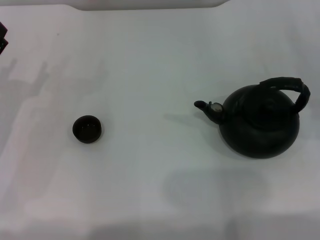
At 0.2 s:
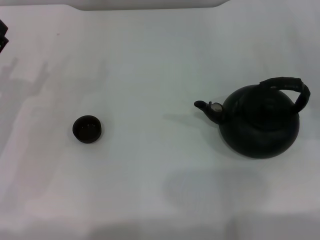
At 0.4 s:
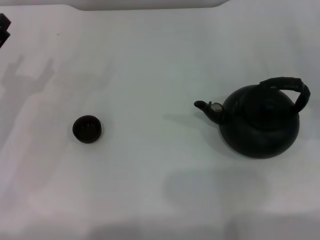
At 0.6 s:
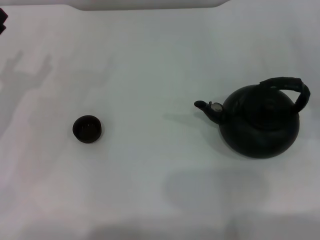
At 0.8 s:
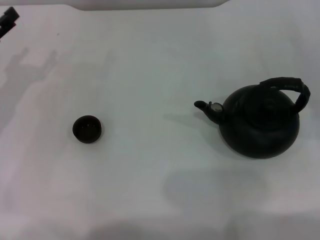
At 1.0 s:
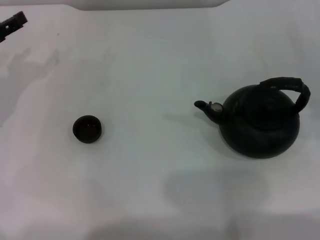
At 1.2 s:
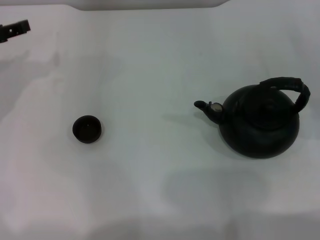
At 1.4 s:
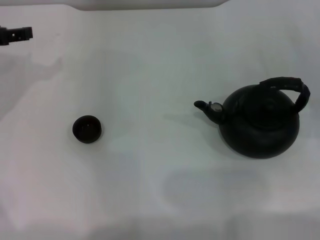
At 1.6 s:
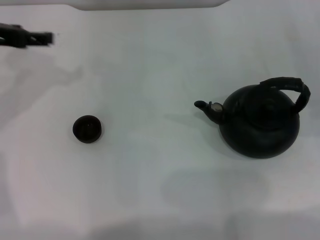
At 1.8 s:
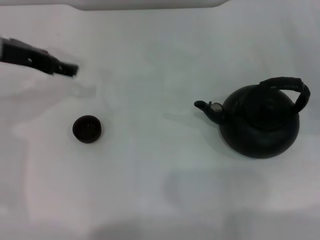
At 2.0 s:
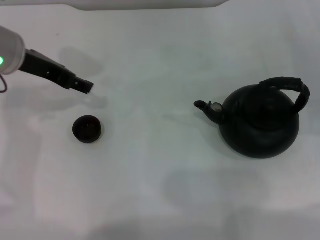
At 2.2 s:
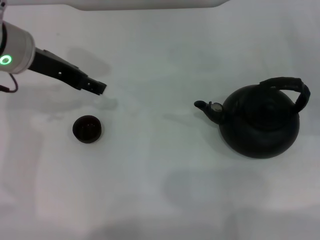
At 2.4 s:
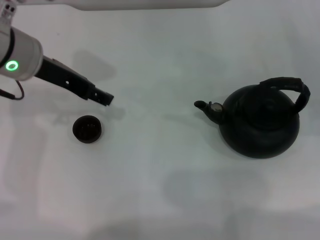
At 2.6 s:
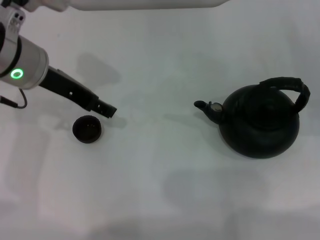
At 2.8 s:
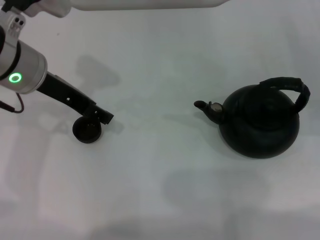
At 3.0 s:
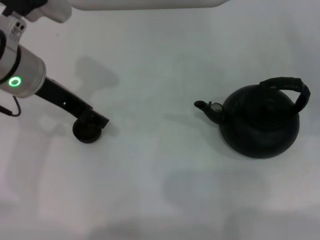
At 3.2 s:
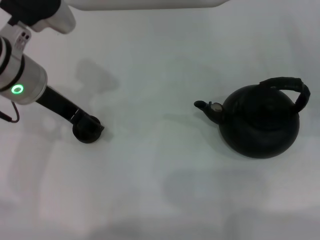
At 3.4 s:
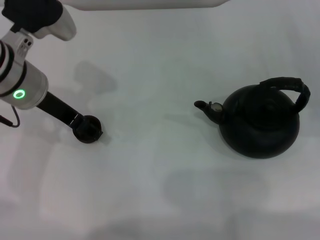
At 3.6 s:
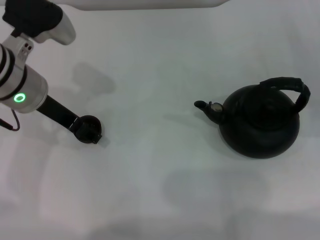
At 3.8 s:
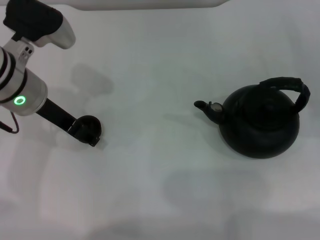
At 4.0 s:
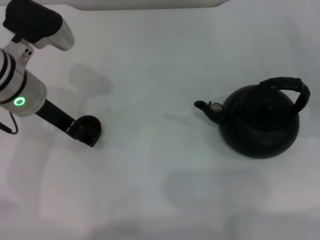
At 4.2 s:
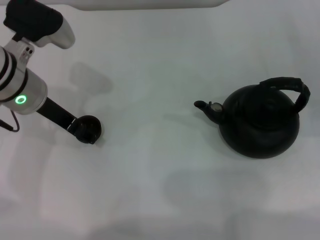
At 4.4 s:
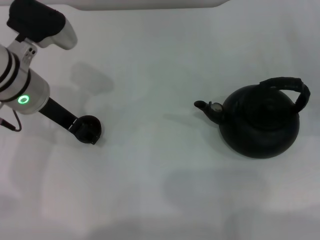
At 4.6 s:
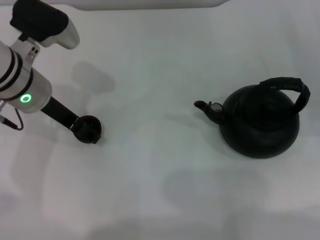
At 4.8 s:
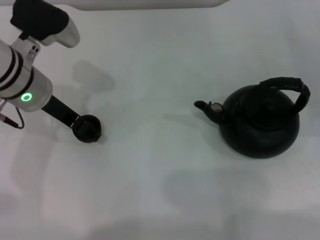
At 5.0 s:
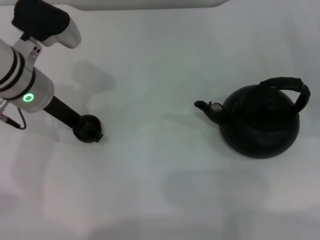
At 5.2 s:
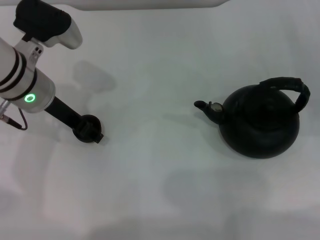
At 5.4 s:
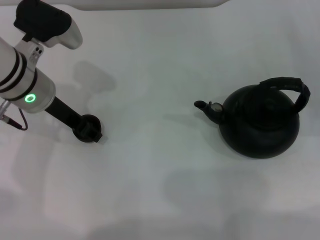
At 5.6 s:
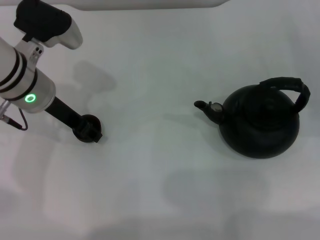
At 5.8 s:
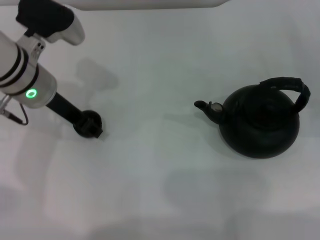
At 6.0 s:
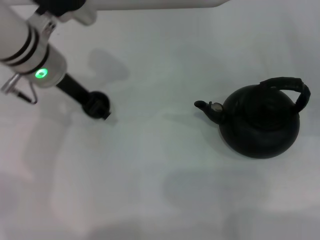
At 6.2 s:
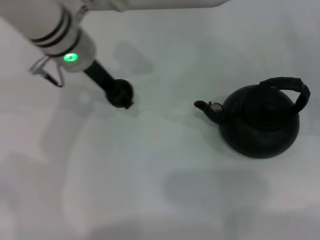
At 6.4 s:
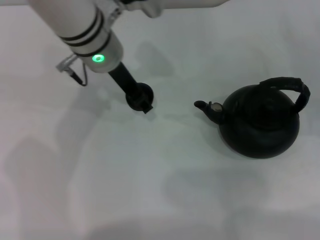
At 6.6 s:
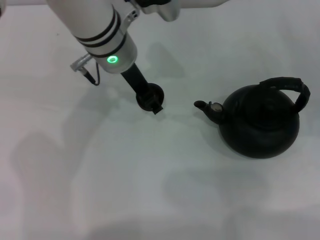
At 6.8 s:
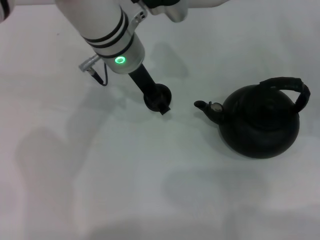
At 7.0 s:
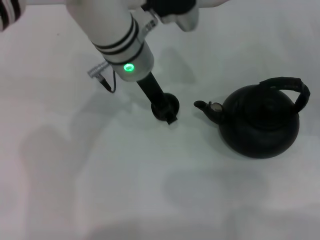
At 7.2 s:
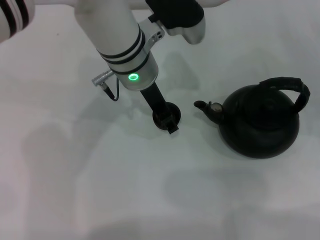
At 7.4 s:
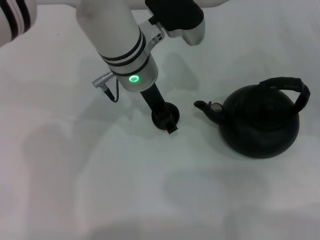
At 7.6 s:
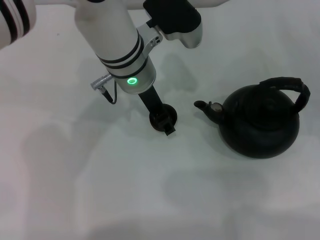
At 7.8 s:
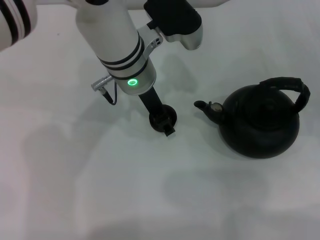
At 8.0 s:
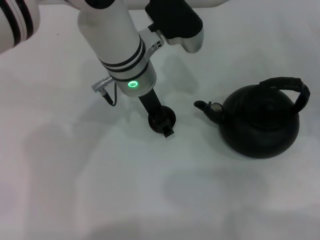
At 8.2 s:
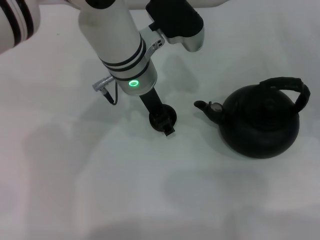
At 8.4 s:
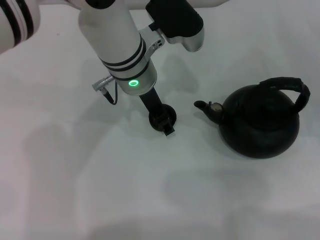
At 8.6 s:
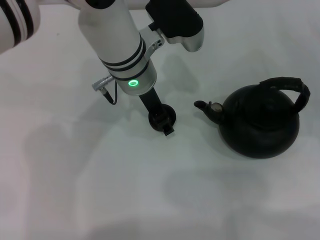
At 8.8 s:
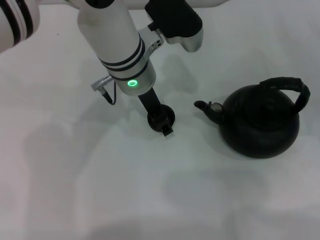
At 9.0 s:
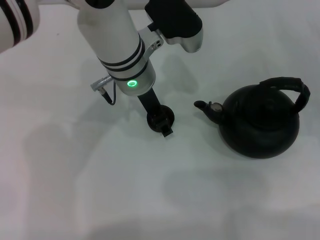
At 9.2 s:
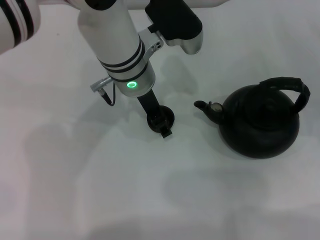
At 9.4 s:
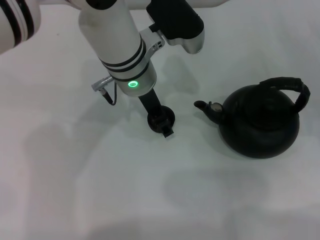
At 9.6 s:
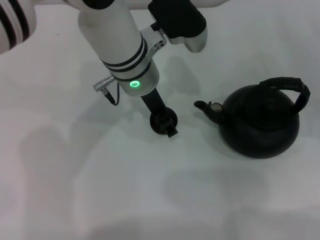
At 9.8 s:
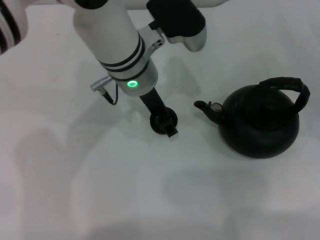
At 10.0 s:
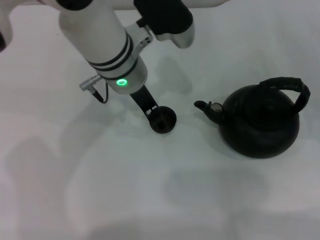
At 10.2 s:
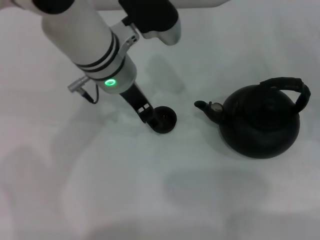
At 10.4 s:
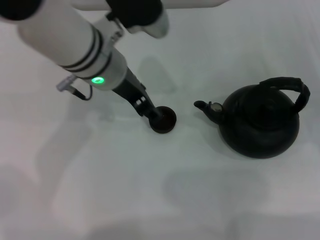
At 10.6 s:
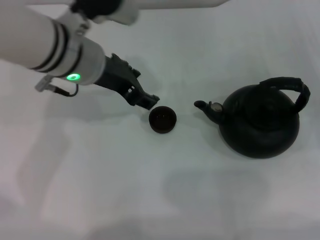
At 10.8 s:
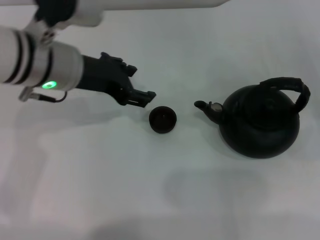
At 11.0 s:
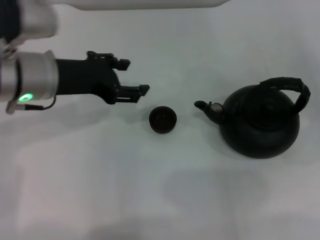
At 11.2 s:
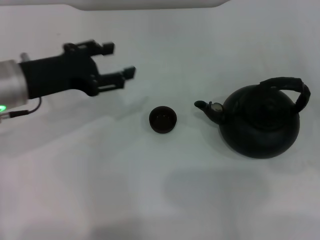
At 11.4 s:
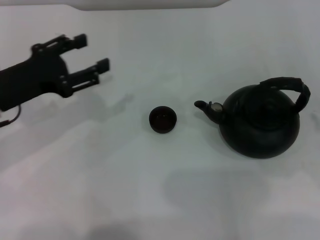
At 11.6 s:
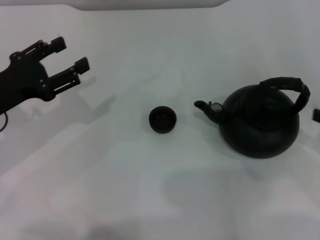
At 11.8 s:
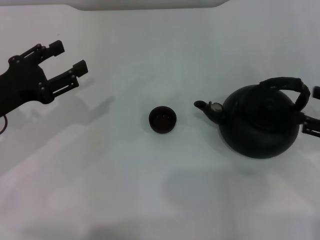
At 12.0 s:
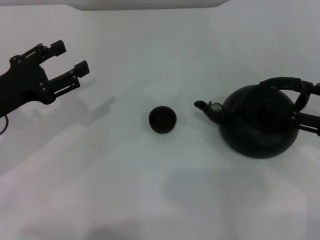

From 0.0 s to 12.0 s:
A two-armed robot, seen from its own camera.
Task of the whole recording: Grasp the handle of the teapot with one hand and pour tea into the teacup.
Step, from 0.0 s to 6.0 s: Pick up the teacup with the left gripper.
Step, from 6.4 s to 10.2 s: Place the teacup in the center of view with the left gripper.
From 0.0 s to 1.6 s: The left gripper is displaced upward and forward by roughly 15 cm.
From 1.6 s to 3.0 s: The left gripper travels to the right by some 10 cm.
From 3.0 s to 4.4 s: There are only small adjustments of the grippers.
From 4.4 s to 6.0 s: The left gripper closes up.
From 6.0 s to 7.6 s: The left gripper heads to the right, covering approximately 10 cm.
From 7.6 s to 9.0 s: Neither gripper changes place.
From 9.0 s to 10.4 s: The left gripper changes place by about 5 cm, and opens.
From 10.4 s to 12.0 s: The right gripper is displaced upward by about 5 cm. The left gripper travels to the left and backward by approximately 20 cm.

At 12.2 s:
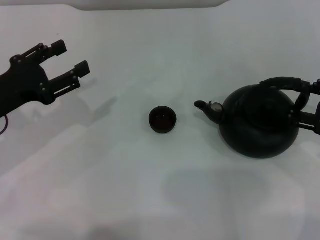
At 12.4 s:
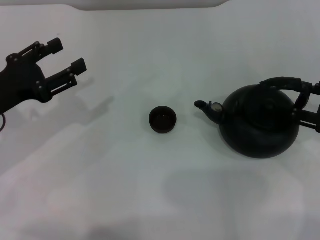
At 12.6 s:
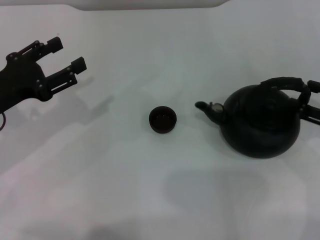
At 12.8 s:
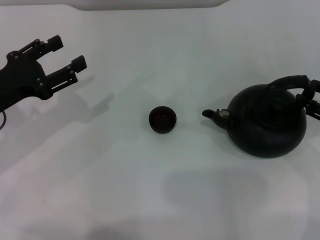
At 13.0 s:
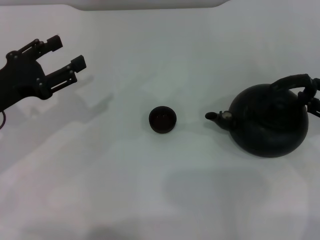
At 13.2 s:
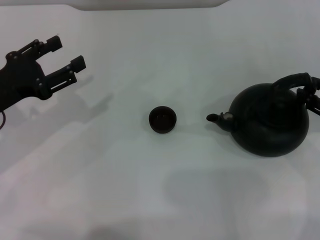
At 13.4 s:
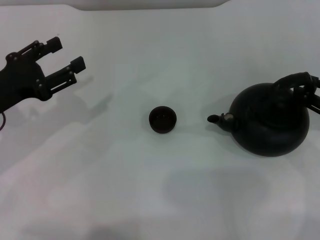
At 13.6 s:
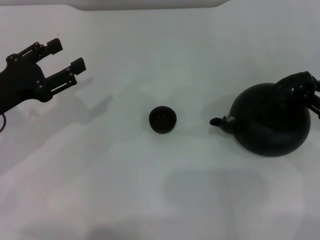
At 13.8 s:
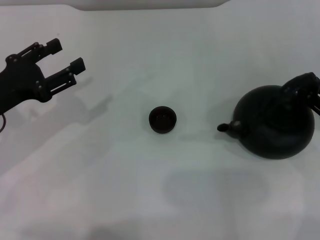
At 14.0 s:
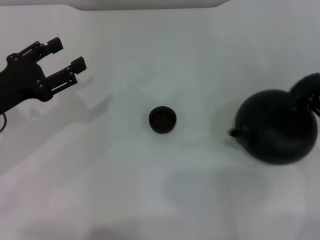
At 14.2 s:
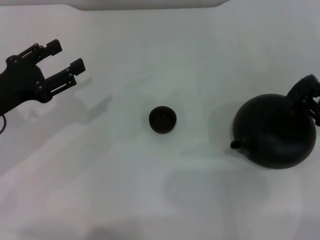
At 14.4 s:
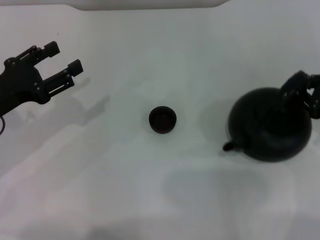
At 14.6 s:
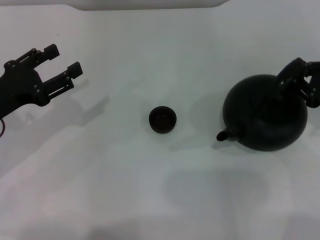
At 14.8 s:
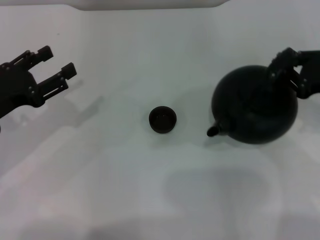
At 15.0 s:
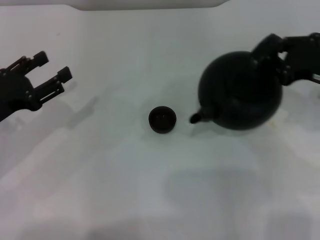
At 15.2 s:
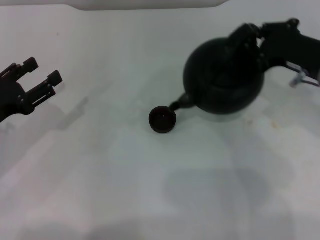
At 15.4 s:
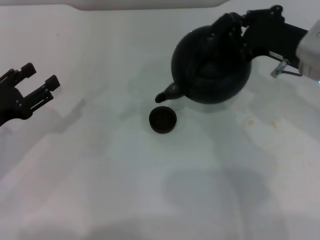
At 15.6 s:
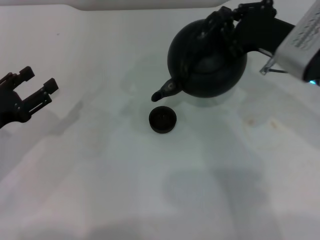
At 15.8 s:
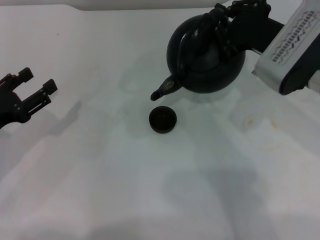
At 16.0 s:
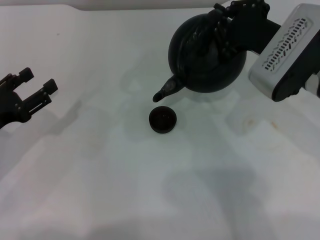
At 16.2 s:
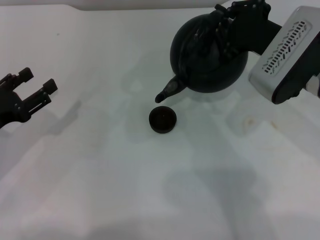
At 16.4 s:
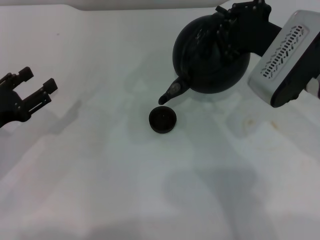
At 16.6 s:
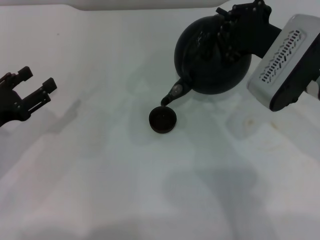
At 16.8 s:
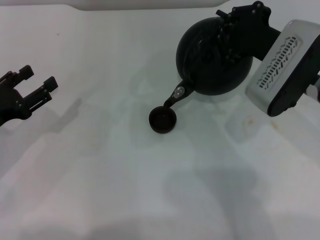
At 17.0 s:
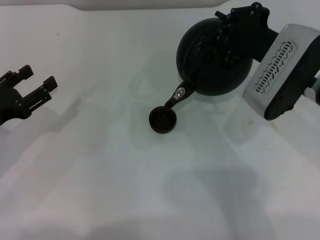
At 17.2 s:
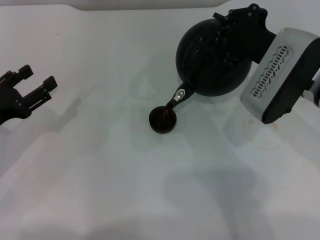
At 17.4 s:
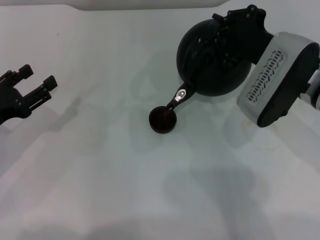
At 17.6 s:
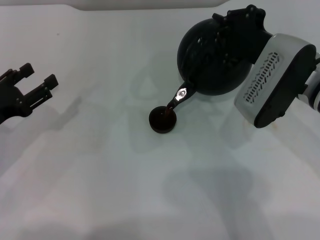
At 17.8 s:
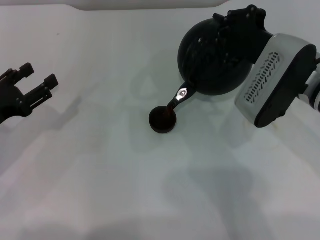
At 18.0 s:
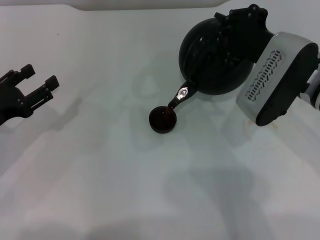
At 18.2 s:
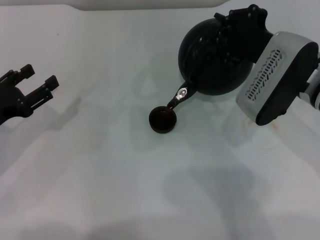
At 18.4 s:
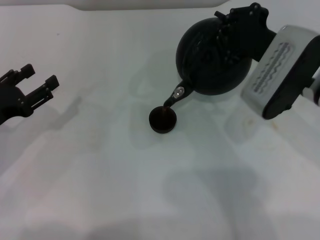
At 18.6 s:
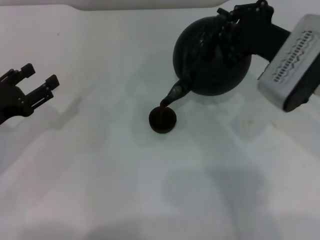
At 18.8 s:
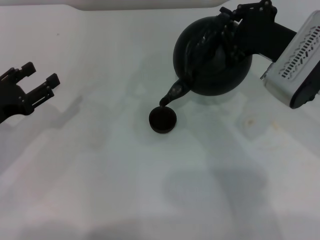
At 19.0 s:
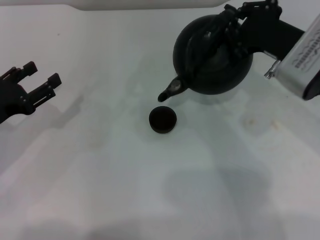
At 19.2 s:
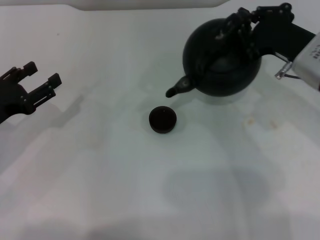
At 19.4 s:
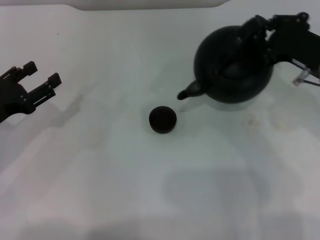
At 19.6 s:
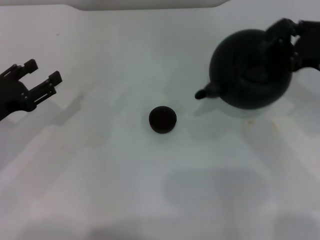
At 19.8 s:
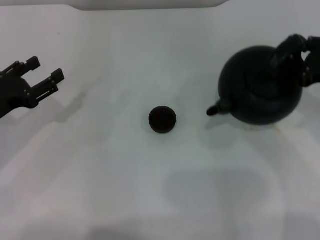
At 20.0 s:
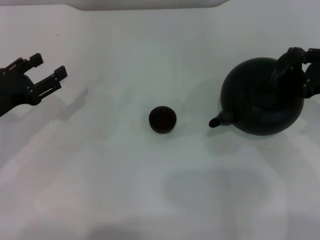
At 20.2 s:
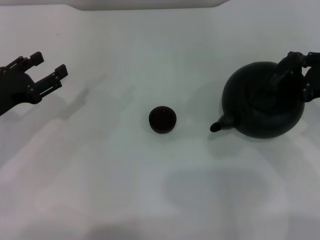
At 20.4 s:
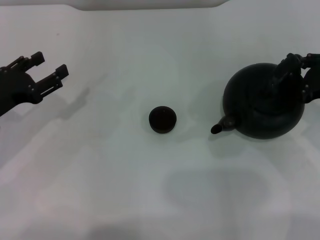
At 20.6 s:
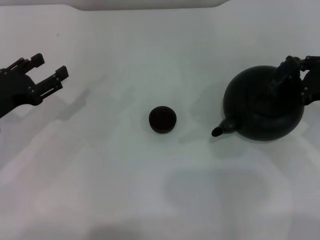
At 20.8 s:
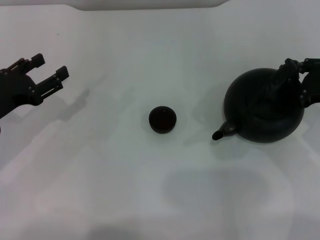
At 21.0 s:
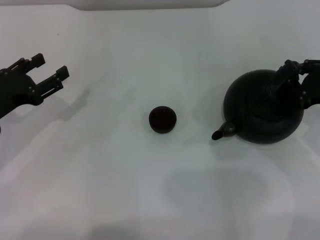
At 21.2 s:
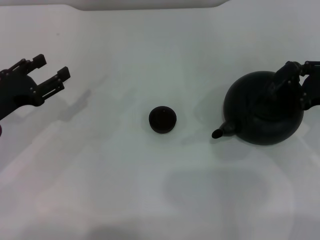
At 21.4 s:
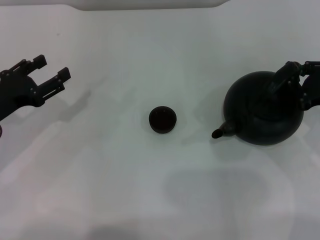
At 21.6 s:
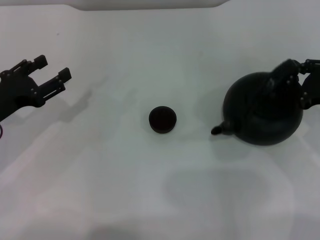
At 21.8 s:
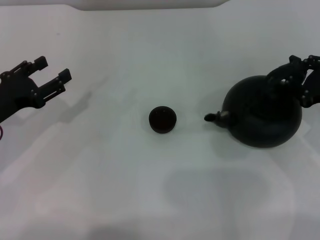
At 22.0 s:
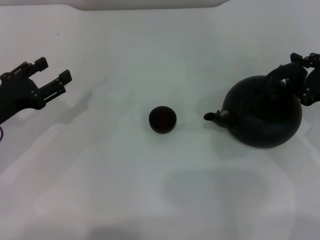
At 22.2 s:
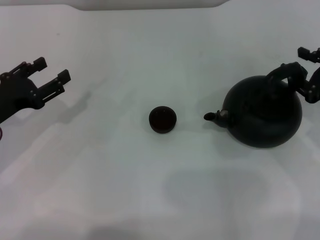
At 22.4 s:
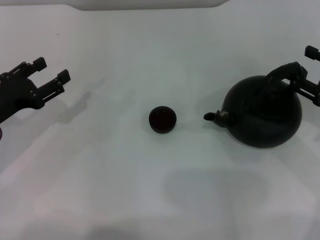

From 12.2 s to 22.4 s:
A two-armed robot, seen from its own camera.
Task of the whole recording: Grasp the handle of the teapot with one hand and pour tea into the teacup.
Step, from 12.2 s to 14.8 s: Pick up the teapot with the right gripper.
Step, from 15.0 s to 19.0 s: Pour tea into the teacup with the right gripper.
From 12.2 s to 13.6 s: The right gripper closes.
From 13.6 s to 15.2 s: The right gripper goes some 10 cm to the left and forward, and closes its fingers.
From 15.2 s to 16.6 s: The right gripper is displaced to the left by some 5 cm.
From 16.6 s to 18.0 s: The grippers make only small movements.
From 18.0 s to 19.4 s: The right gripper moves to the right, some 5 cm.
From 19.4 s to 21.0 s: The right gripper shifts approximately 5 cm to the right.
From 21.0 s to 22.4 s: The right gripper opens.
